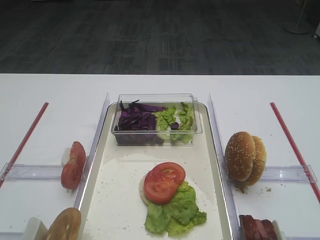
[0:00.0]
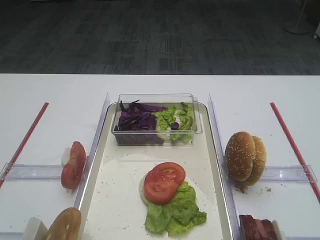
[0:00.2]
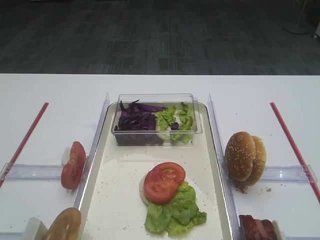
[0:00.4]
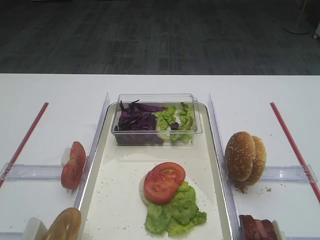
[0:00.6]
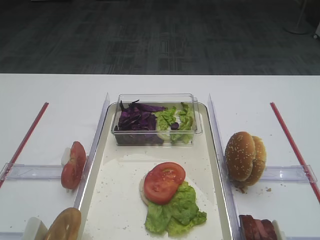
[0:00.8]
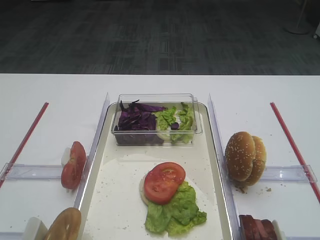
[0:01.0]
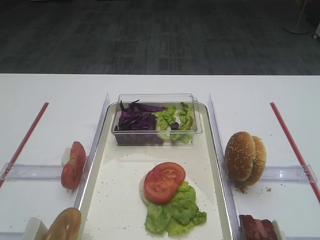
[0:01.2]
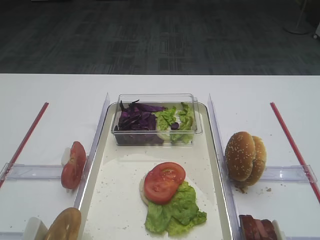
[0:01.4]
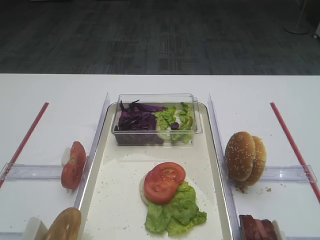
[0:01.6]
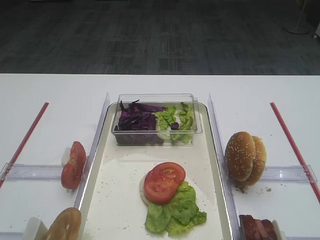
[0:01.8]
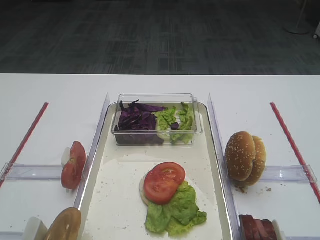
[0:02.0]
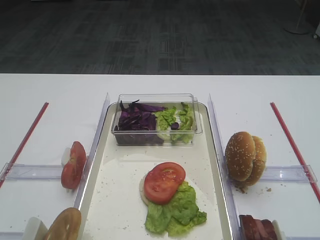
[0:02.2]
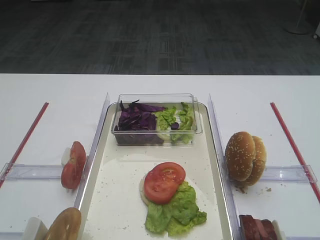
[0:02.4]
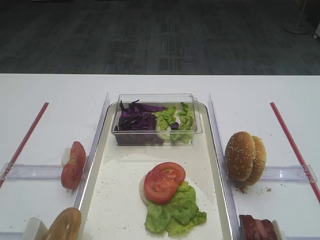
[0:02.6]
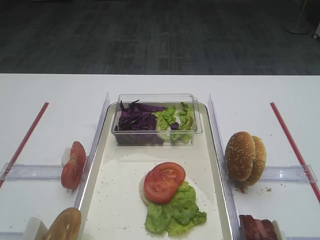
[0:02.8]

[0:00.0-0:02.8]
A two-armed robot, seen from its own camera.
0:00.0 to 0:01.4: The two grippers keep their place.

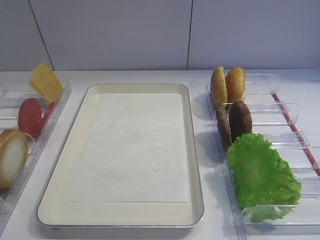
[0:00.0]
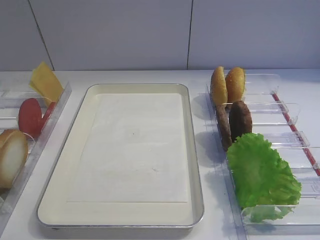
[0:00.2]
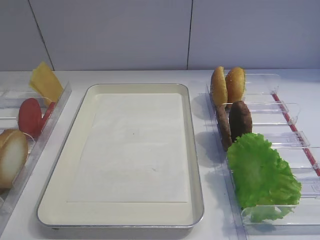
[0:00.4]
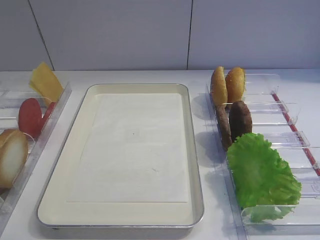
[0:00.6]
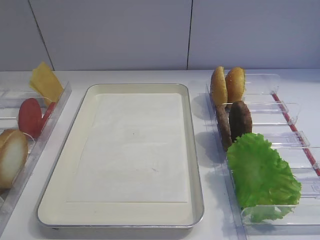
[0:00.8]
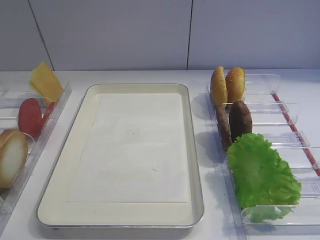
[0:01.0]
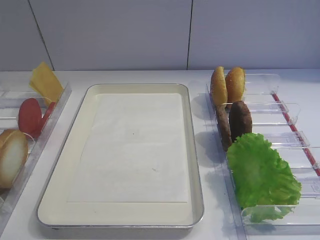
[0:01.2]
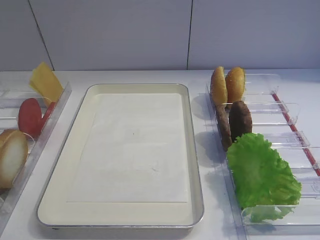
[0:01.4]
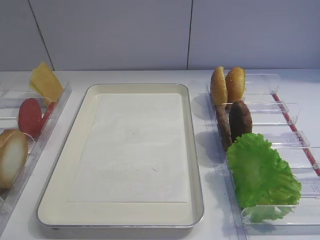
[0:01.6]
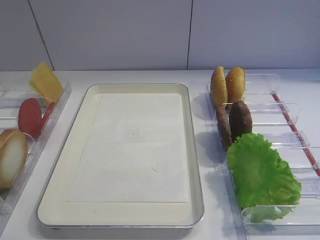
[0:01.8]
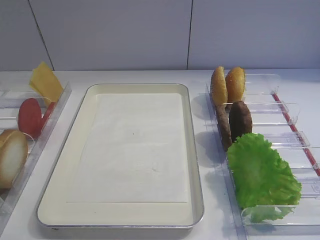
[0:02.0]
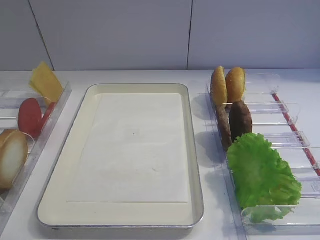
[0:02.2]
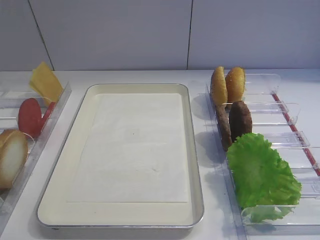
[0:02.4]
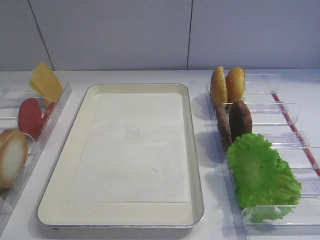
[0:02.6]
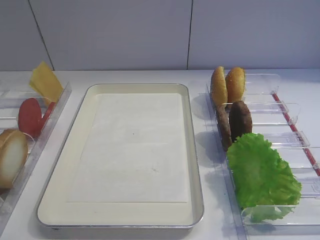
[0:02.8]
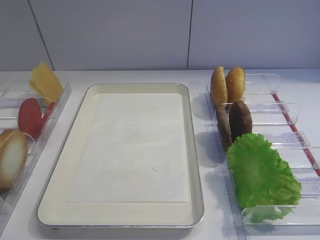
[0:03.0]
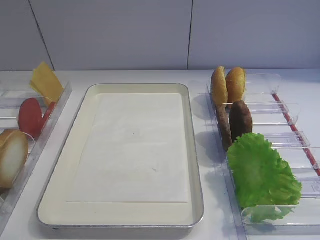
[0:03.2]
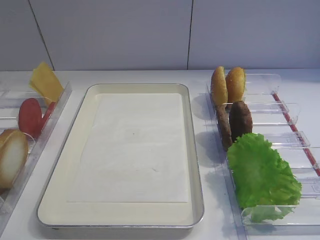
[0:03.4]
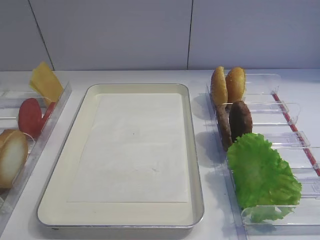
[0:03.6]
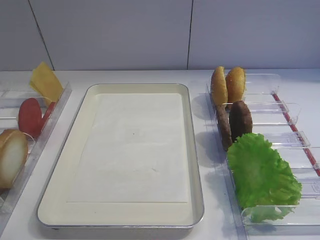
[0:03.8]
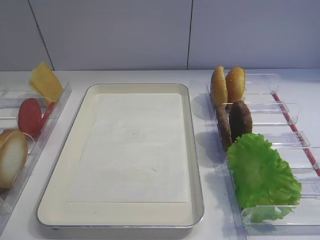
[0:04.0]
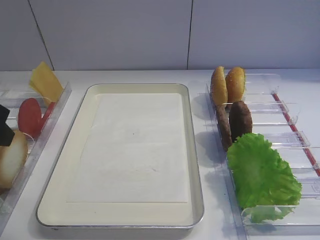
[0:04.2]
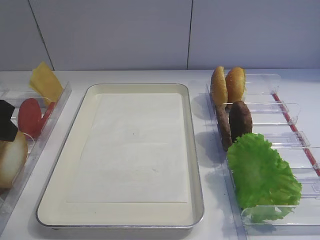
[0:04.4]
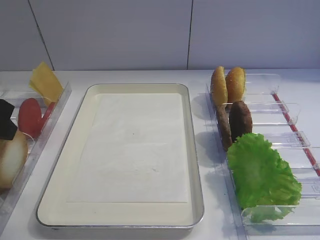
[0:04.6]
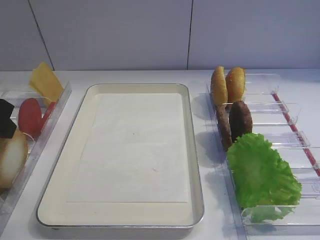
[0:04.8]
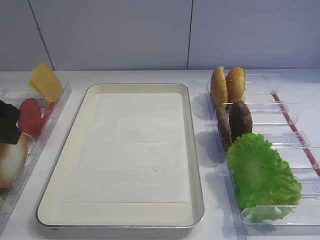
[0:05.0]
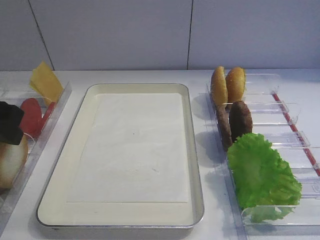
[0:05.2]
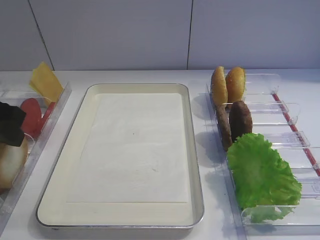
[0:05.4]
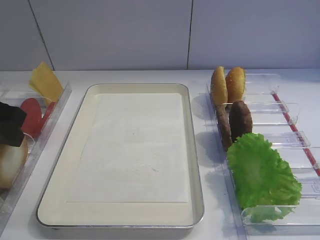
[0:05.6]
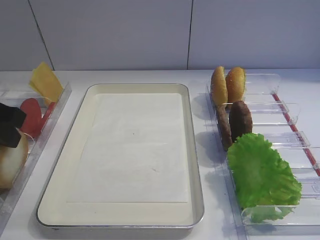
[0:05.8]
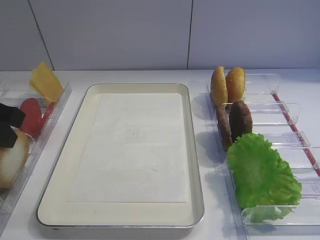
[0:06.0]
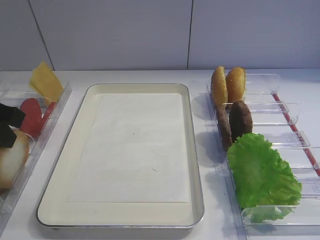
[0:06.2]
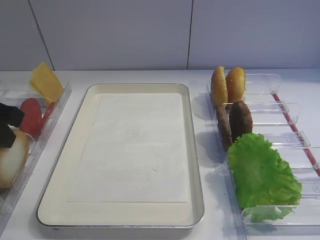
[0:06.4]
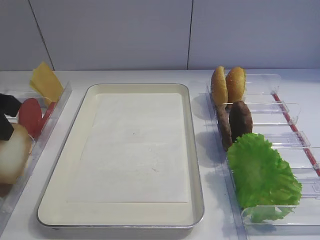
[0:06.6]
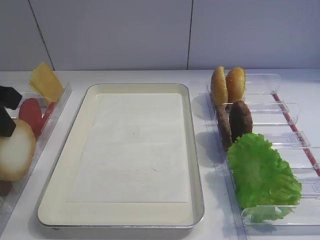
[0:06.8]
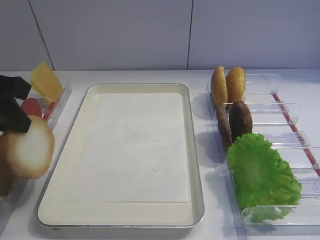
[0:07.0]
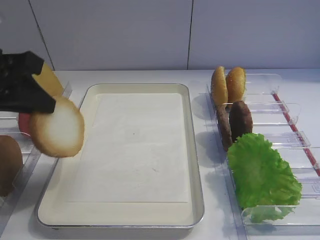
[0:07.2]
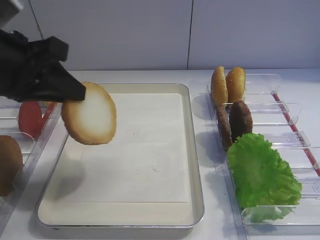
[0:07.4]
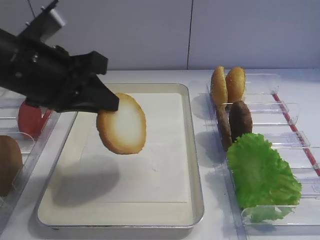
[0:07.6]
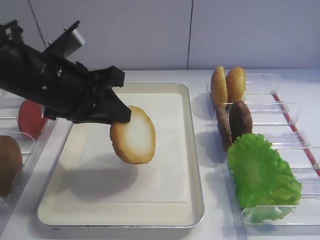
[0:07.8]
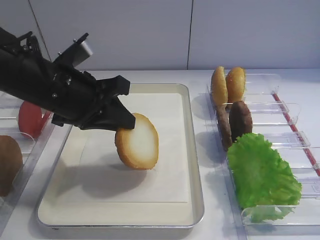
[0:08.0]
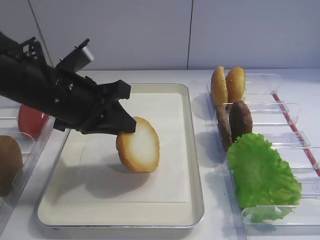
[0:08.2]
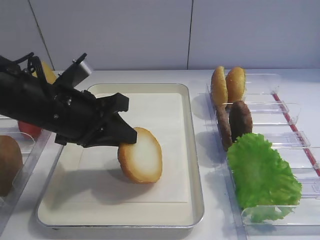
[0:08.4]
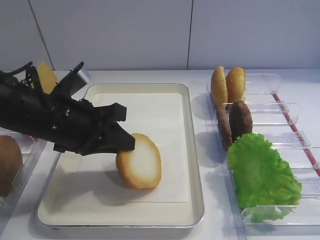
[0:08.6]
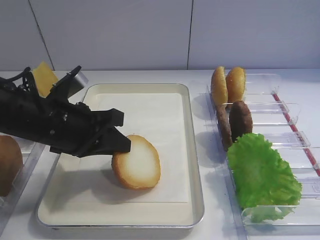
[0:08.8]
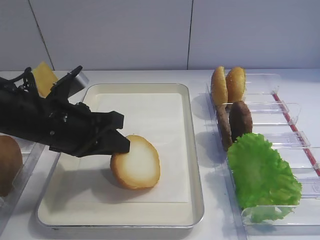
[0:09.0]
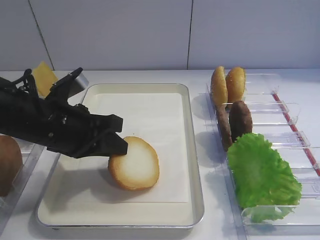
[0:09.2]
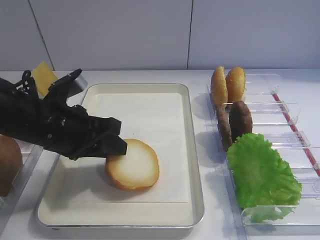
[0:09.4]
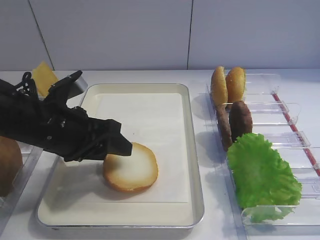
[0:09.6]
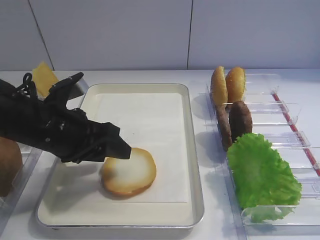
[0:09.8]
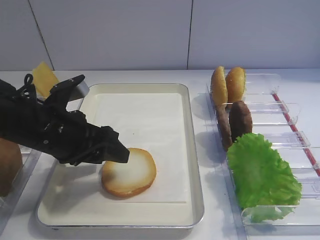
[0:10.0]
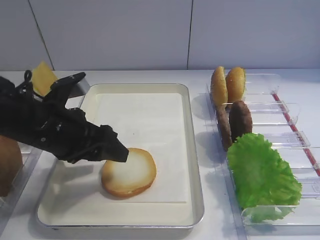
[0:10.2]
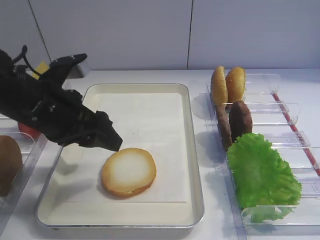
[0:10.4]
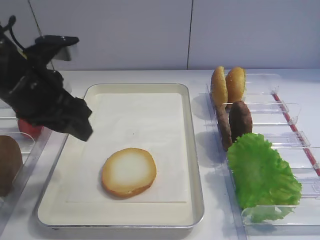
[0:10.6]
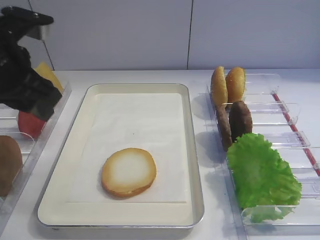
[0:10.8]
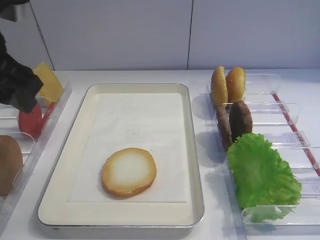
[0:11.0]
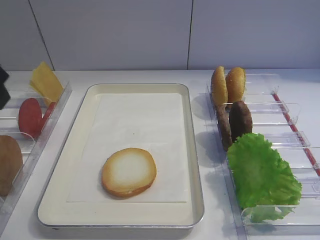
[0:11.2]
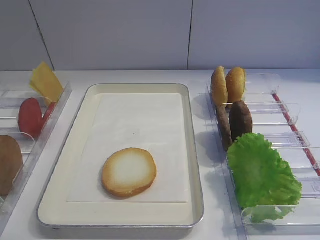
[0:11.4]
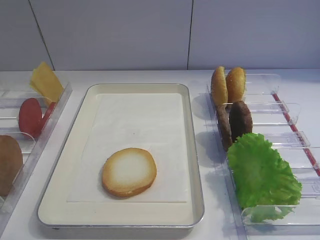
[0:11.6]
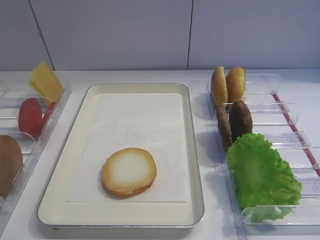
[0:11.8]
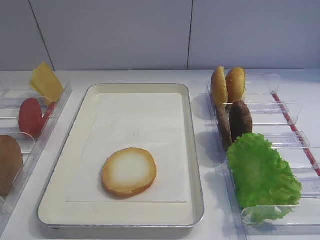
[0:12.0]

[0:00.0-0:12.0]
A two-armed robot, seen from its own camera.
Step, 0:00.0 to 0:06.8: Pick up the bread slice with the left gripper.
Step, 0:07.0 to 0:10.4: Place the bread slice on the tray with the left gripper.
0:03.0 to 0:04.4: The left gripper travels forward by some 20 cm.
0:06.0 to 0:07.6: The left gripper moves to the right, some 10 cm.
0:07.6 to 0:09.0: The left gripper travels downward by some 10 cm.
0:09.0 to 0:10.4: The left gripper opens its fingers.
0:10.4 to 0:12.0: The left gripper travels backward, to the left and upward by some 30 cm.

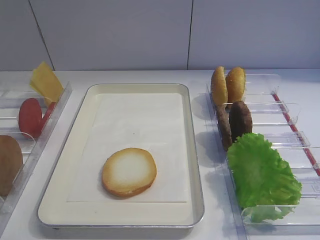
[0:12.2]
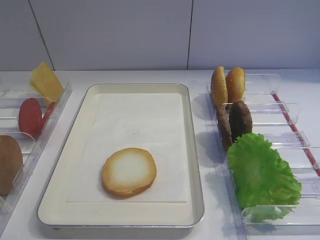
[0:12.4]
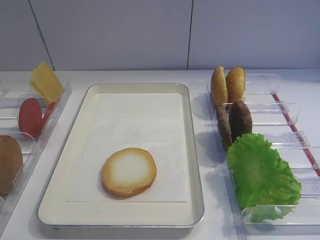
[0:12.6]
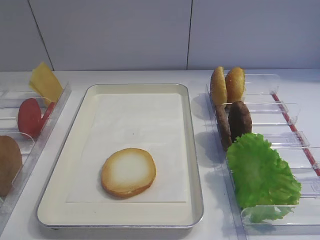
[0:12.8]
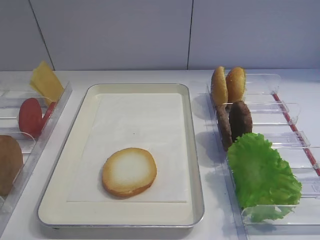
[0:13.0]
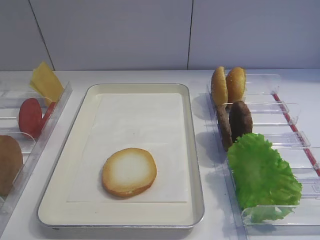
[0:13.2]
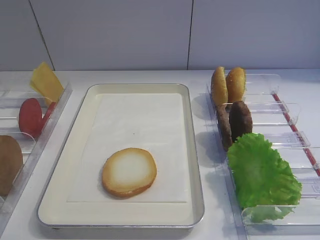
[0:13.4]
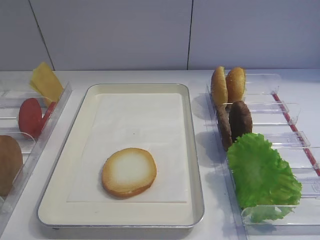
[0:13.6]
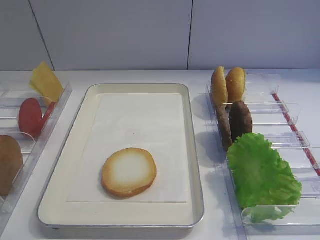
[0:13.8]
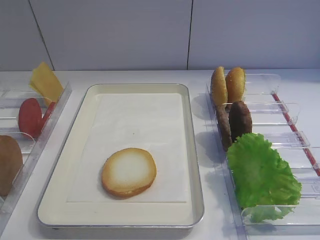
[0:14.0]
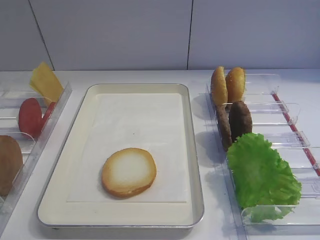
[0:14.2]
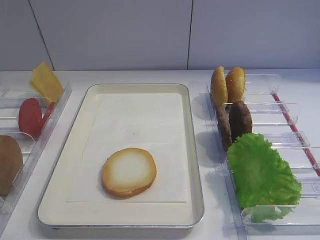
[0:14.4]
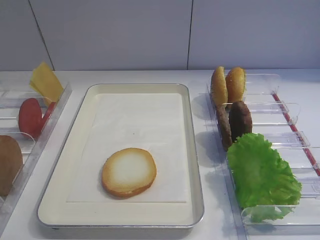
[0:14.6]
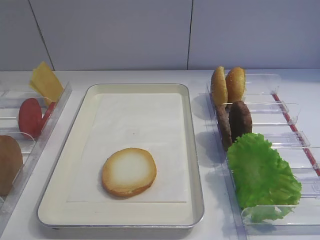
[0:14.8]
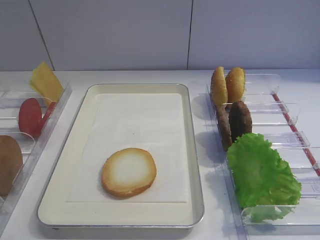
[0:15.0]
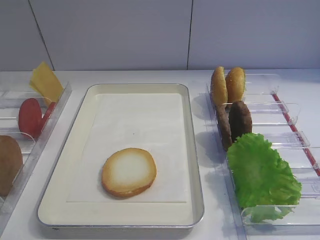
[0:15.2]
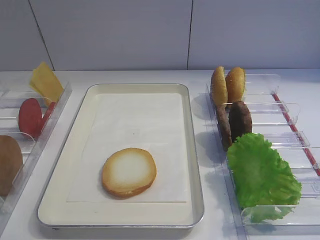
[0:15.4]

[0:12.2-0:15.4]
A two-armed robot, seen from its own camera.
0:13.8 to 0:15.4: Both grippers stay about where they are.

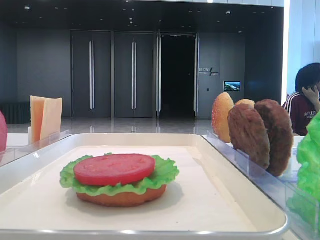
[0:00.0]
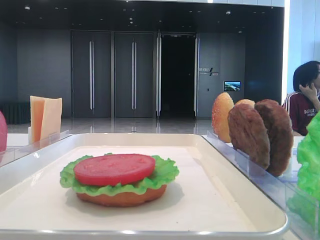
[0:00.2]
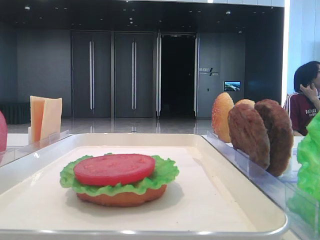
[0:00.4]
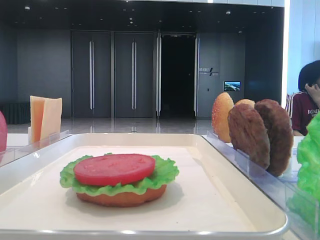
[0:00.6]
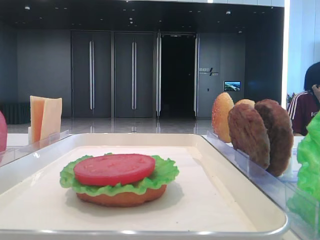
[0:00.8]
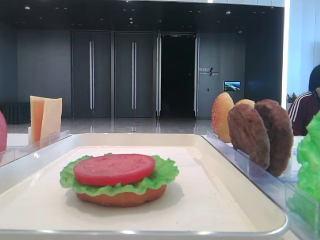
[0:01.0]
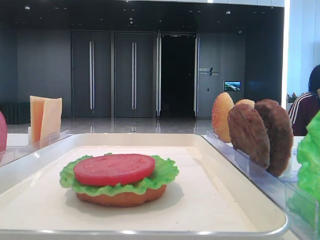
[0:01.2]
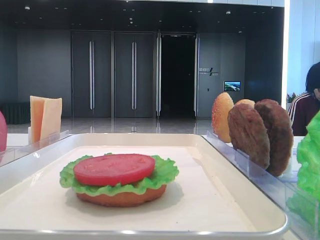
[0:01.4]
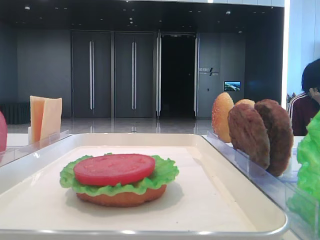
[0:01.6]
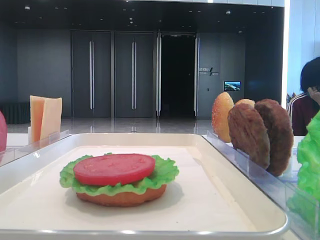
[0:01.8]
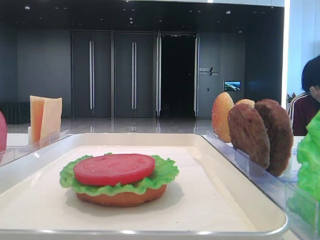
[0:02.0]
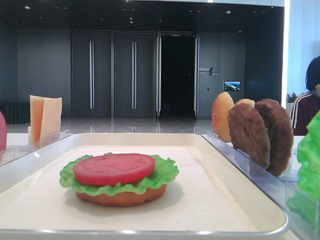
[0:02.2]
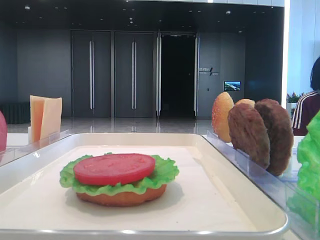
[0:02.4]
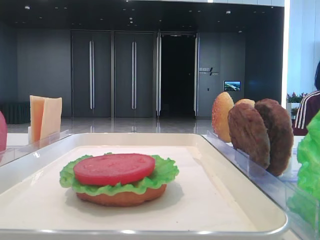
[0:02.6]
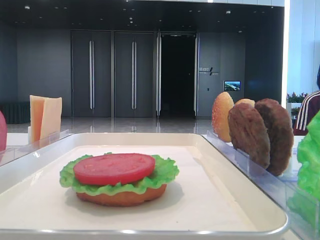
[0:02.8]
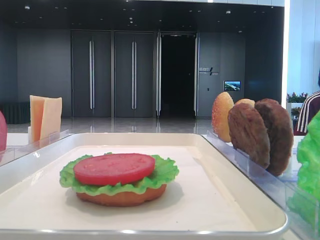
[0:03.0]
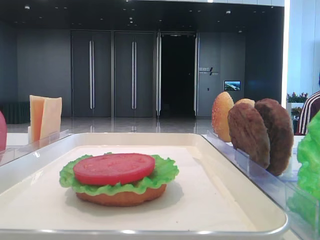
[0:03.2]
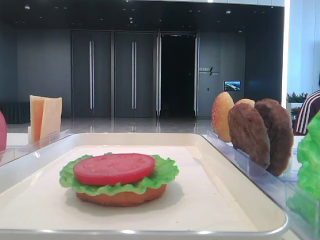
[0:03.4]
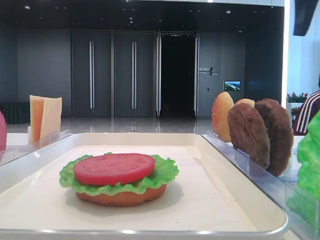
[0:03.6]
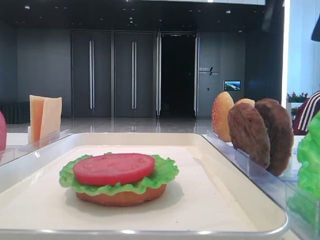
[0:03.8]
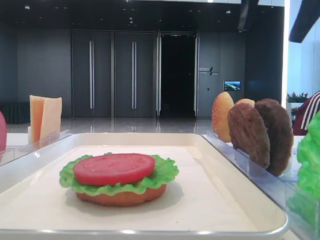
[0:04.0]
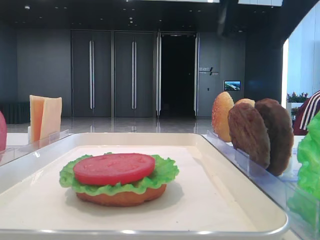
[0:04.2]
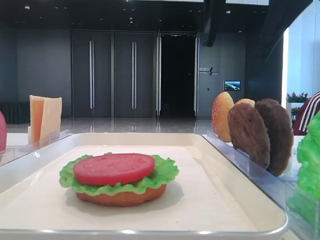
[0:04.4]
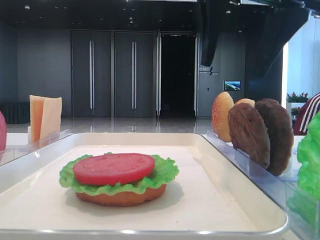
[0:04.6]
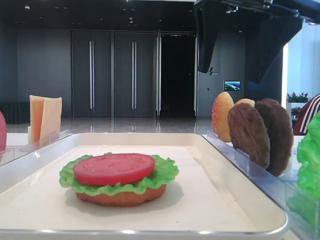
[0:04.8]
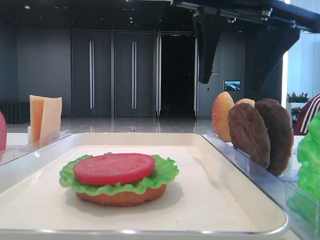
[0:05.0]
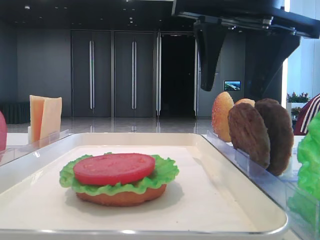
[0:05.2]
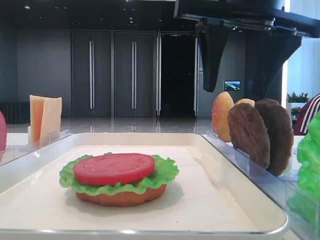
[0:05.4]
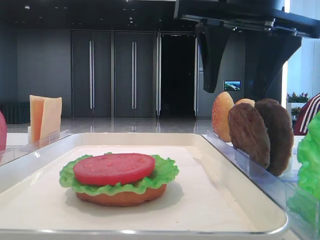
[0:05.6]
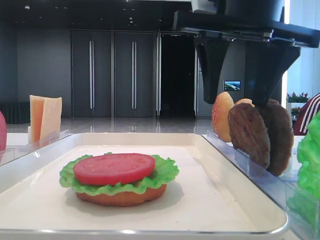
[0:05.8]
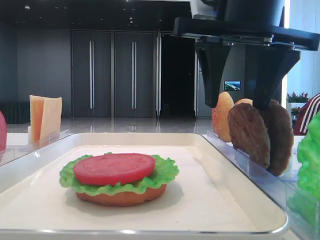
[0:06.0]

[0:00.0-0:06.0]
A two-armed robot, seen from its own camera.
0:01.6 to 0:03.0: The right gripper travels forward by approximately 25 cm.
0:03.0 to 0:04.4: The right gripper heads to the left, covering some 20 cm.
0:04.4 to 0:06.0: The right gripper shifts roughly 5 cm downward.
